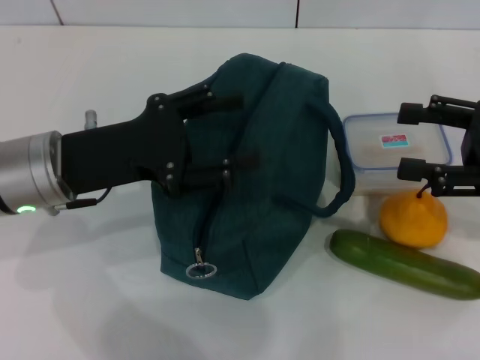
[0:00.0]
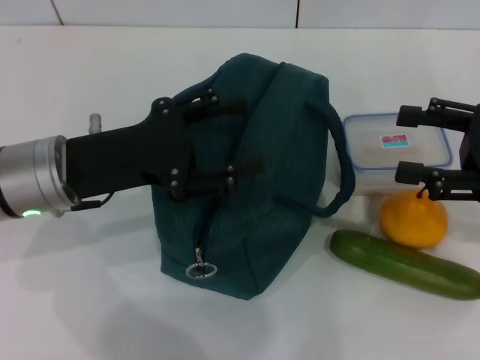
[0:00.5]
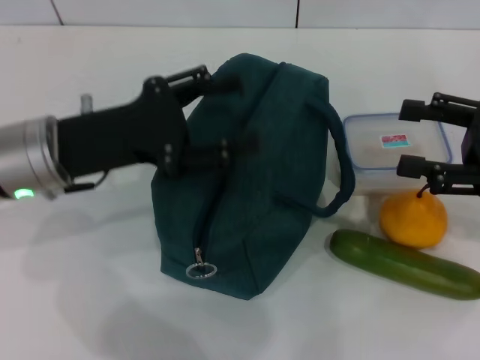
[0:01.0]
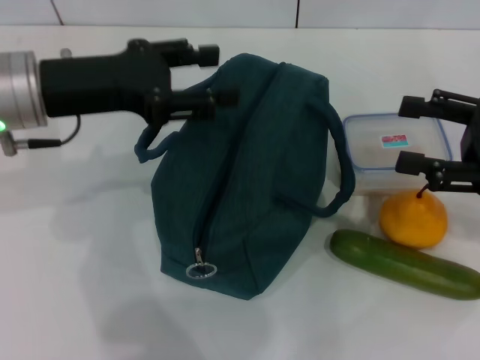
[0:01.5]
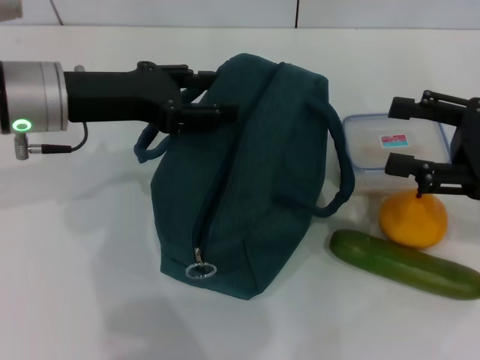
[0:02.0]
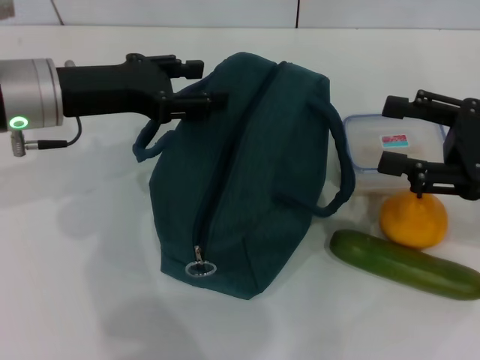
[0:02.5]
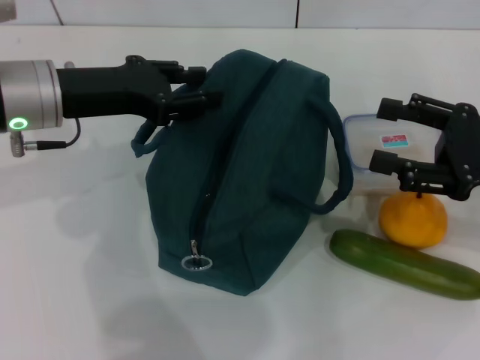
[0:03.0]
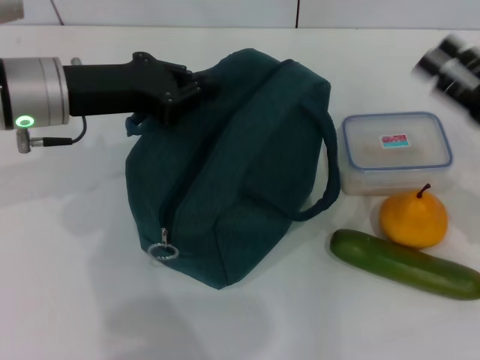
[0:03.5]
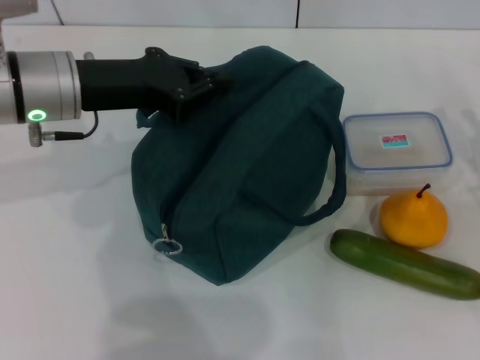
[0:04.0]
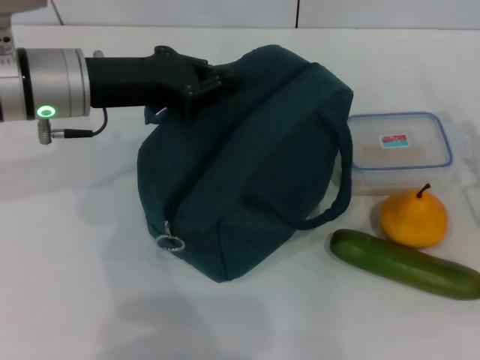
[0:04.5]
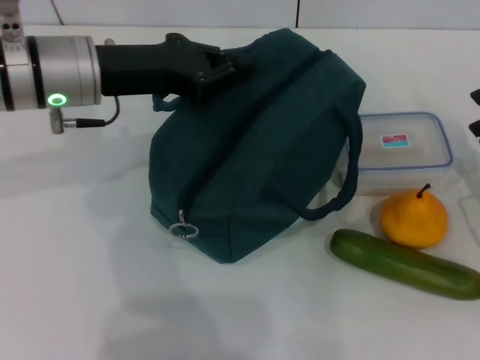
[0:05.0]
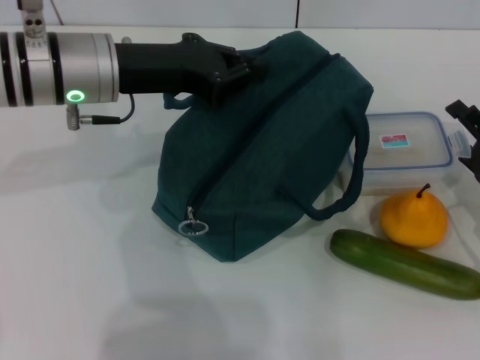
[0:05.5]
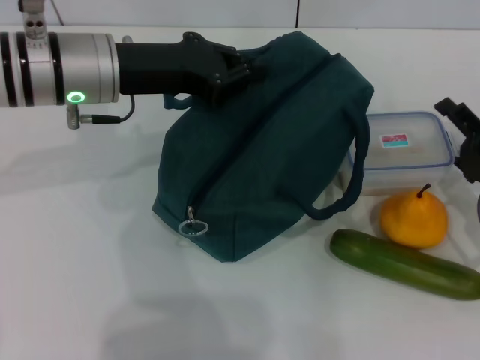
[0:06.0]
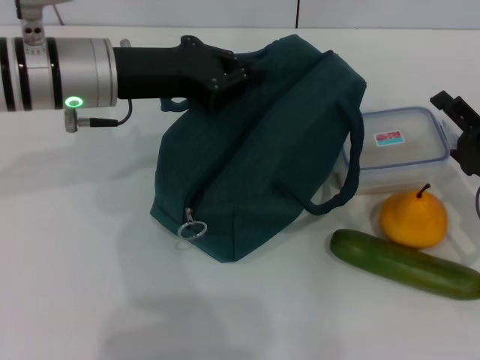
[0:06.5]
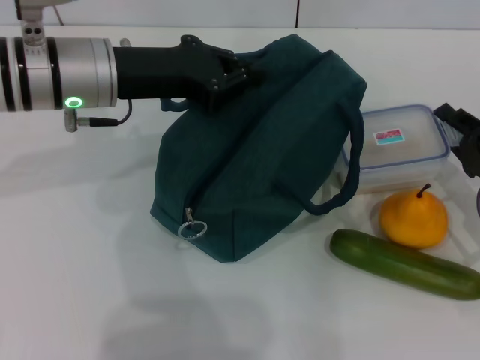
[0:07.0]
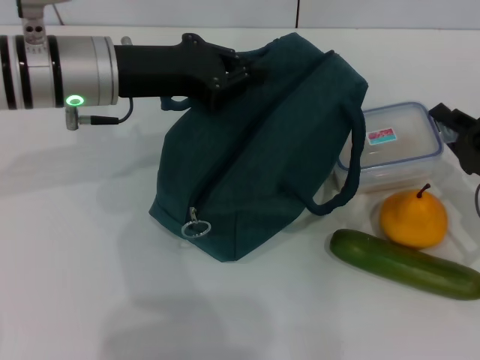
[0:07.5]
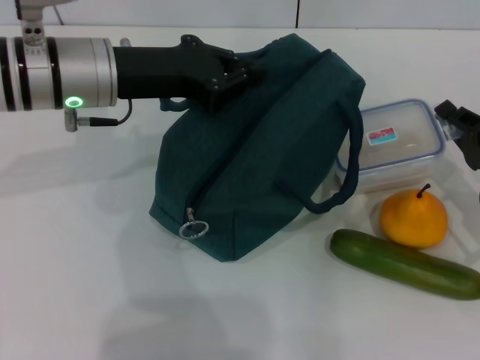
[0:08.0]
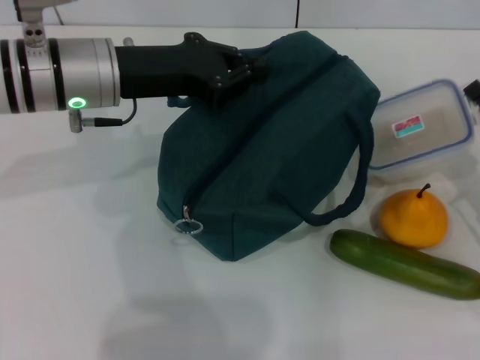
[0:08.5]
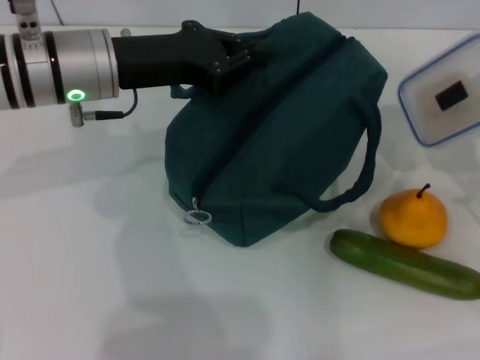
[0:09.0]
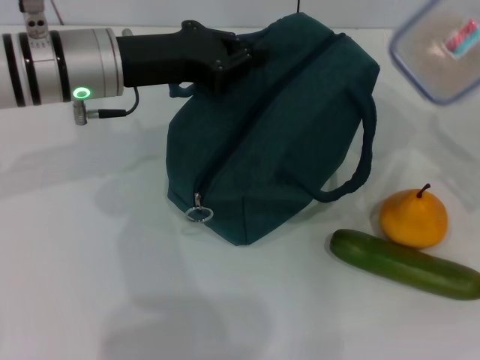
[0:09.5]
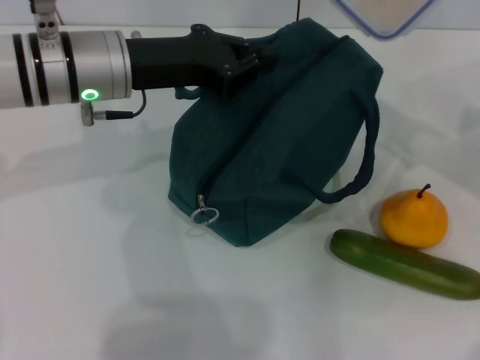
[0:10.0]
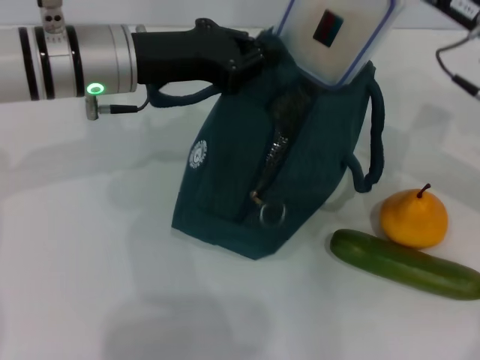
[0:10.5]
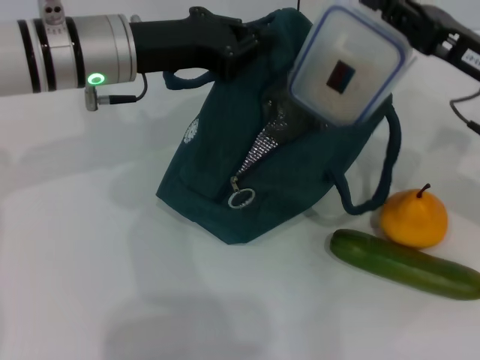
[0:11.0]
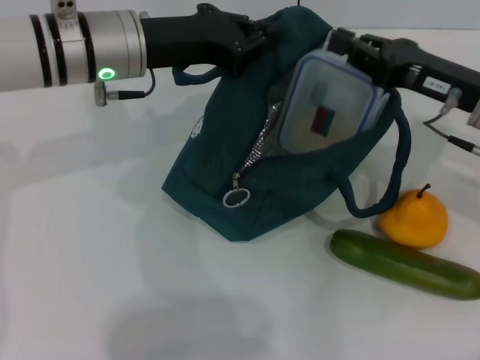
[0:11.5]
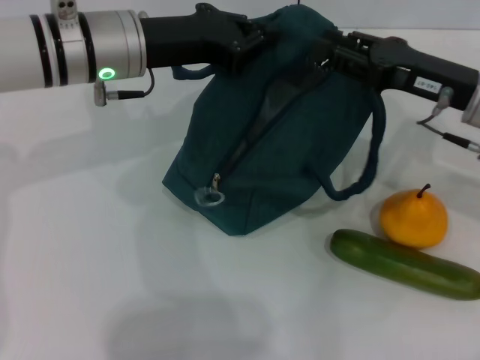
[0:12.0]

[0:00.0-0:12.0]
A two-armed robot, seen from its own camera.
Step, 0.0 to 3.5 s: Hold the lunch bag with your left hand.
Step, 4.0 to 8.0 s: Pick up the lunch box with your right hand.
0.0 to 2.0 s: The left gripper goes roughly 5 cm forward.
2.0 to 4.0 s: The left gripper closes. The right gripper shifts roughly 10 cm downward.
6.0 to 8.0 s: The right gripper closes its fingers.
8.0 to 10.0 s: The right gripper goes some 20 cm upward and forward.
10.0 to 12.0 s: The right gripper moves downward, about 5 cm.

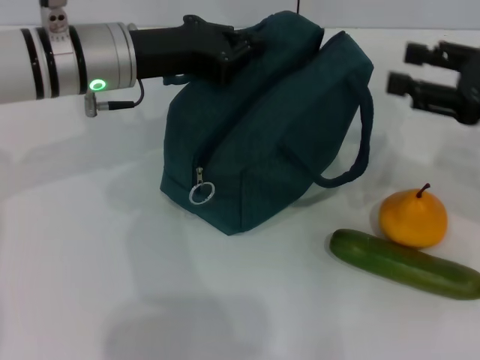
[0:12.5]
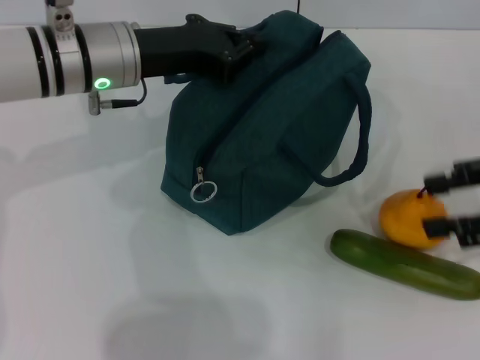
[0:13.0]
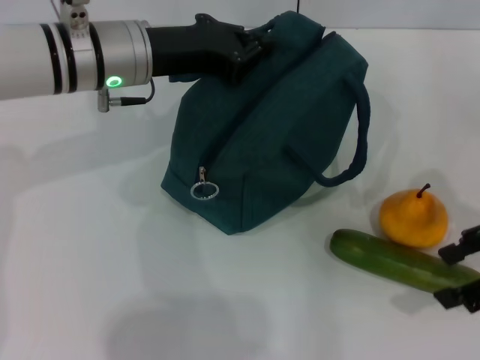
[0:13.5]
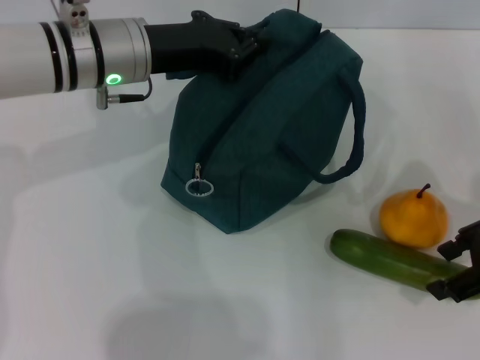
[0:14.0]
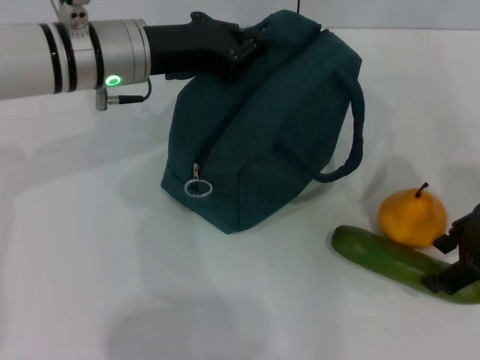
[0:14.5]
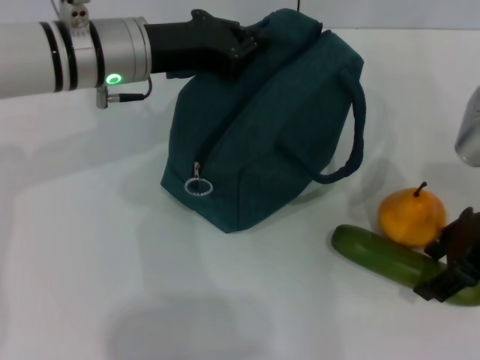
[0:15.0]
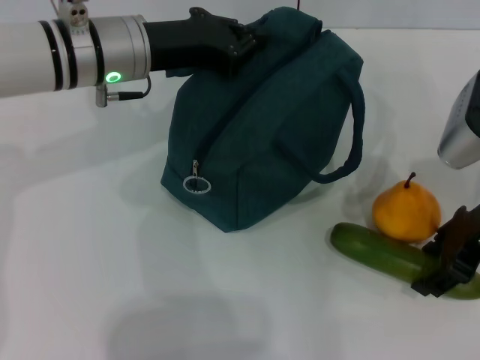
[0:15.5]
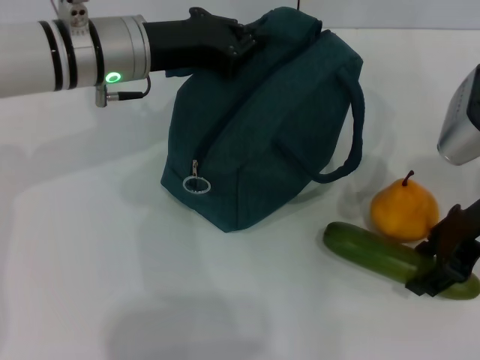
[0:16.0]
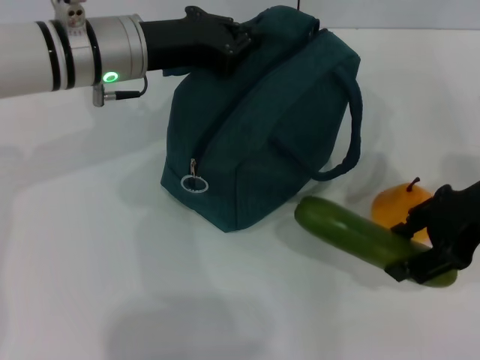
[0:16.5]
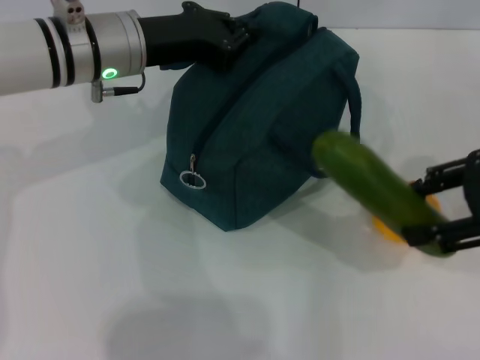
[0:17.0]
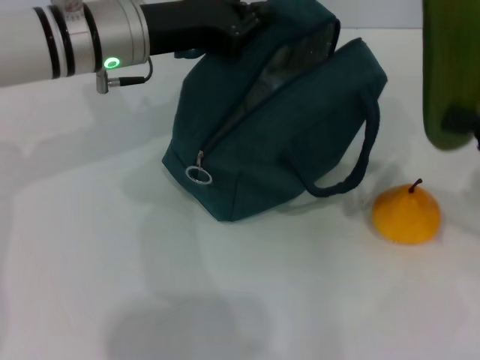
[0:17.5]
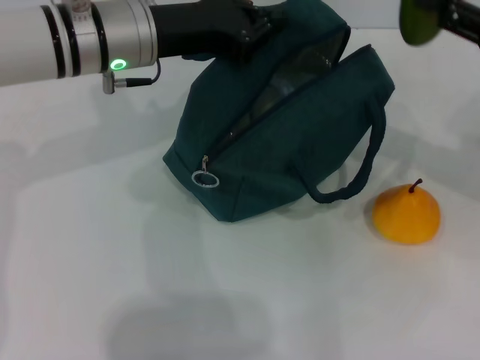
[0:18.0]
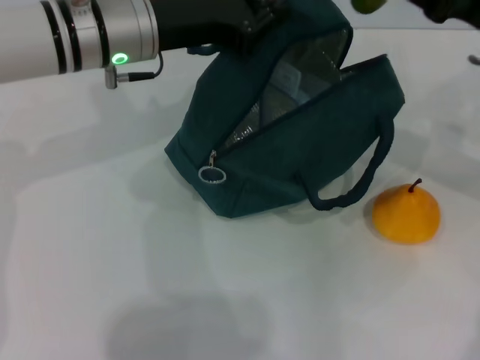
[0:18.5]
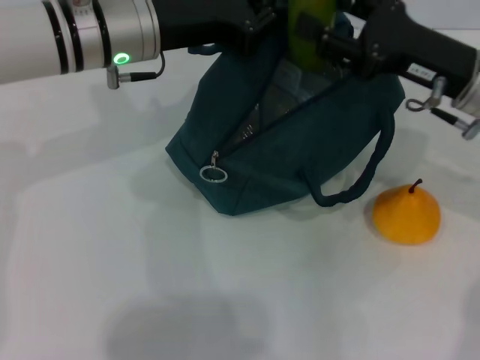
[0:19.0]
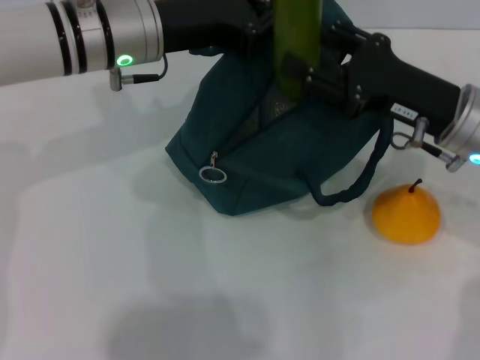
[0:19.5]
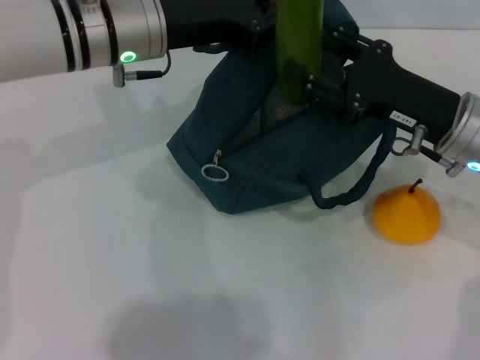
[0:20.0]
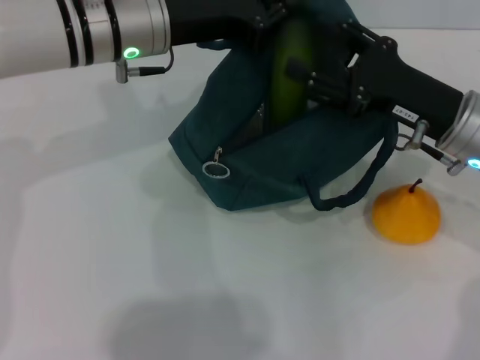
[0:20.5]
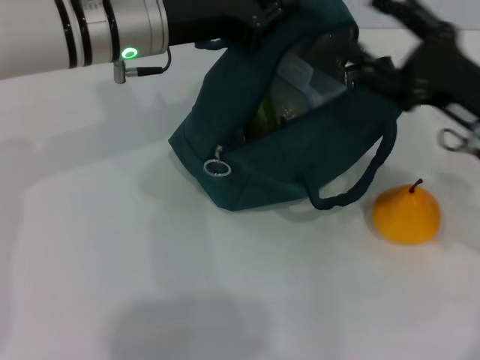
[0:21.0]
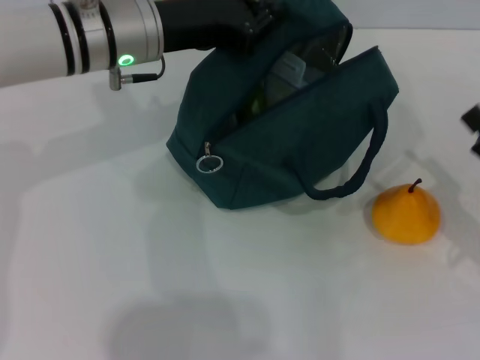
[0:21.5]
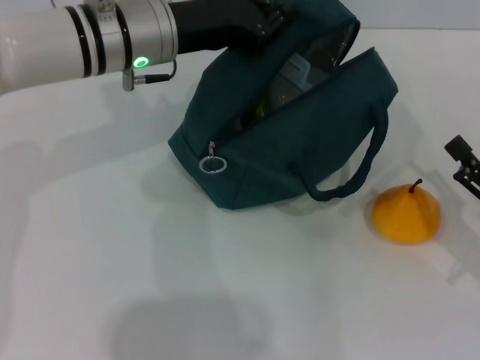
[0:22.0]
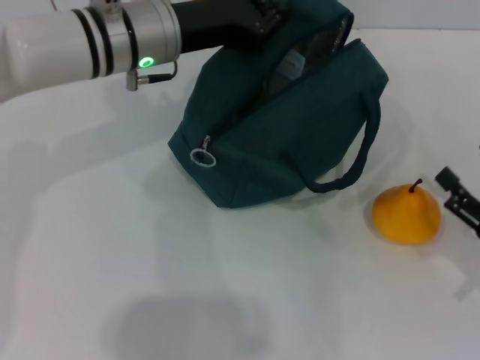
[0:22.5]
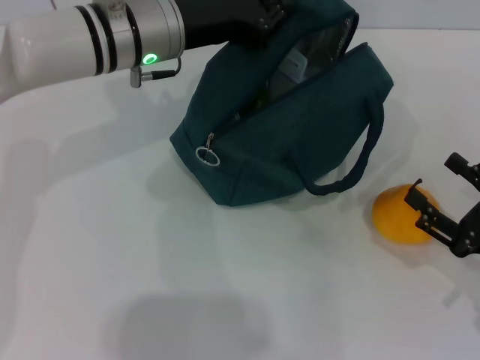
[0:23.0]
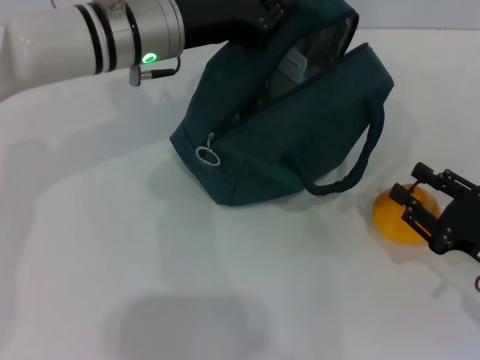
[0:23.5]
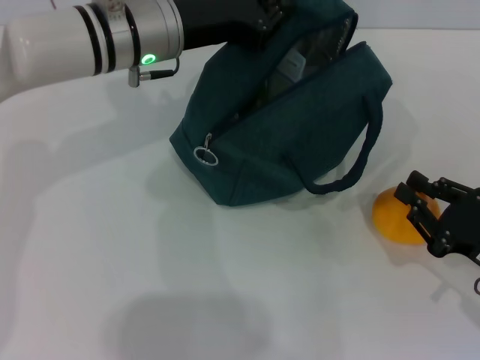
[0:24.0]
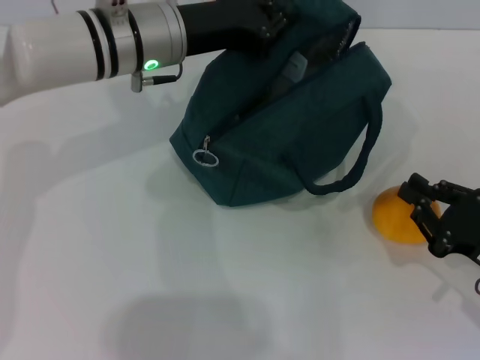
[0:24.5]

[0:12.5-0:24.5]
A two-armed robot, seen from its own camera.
Step, 12.5 to 15.5 s: Pick up the cucumber with your right hand.
Step, 16.0 to 20.5 s: Put the cucumber into the lunch bag with your right hand.
14.5 to 16.5 s: There are only small adjustments of the grippers.
16.5 to 18.5 s: The right gripper travels forward by about 5 cm, and travels to the right and back again, about 10 cm each way.
18.5 to 20.5 s: The right gripper goes about 10 cm downward and to the left.
20.5 to 22.5 s: The right gripper travels backward, to the right and downward by roughly 20 cm.
22.5 to 24.5 s: The right gripper closes its fingers.

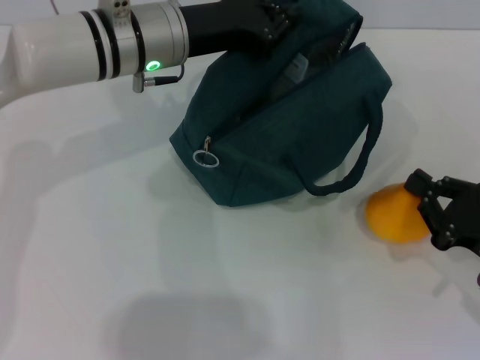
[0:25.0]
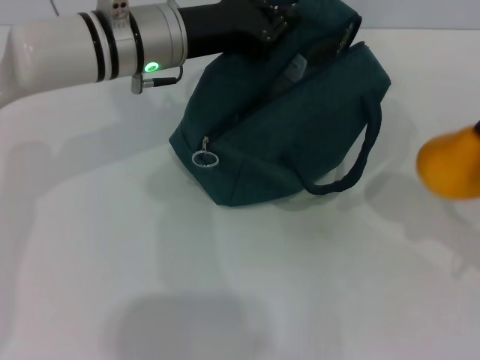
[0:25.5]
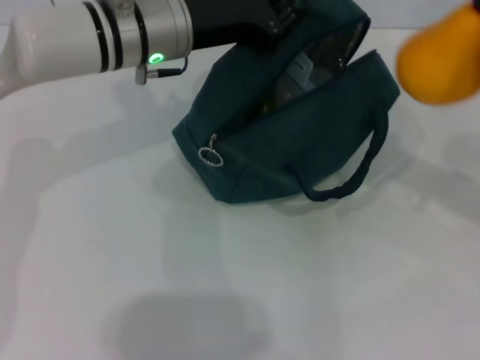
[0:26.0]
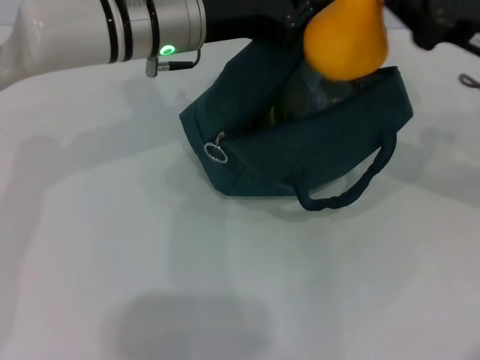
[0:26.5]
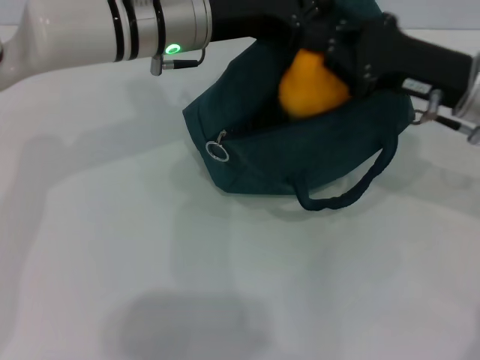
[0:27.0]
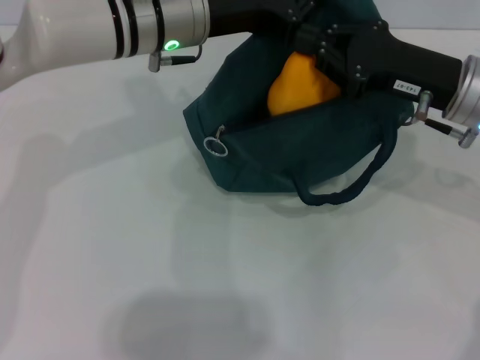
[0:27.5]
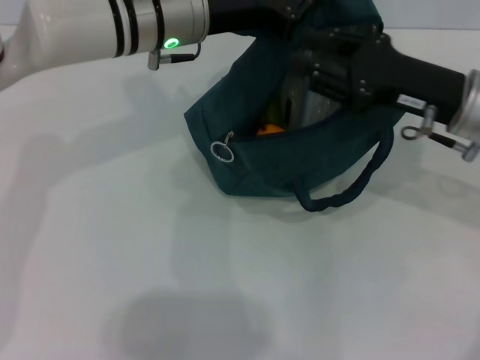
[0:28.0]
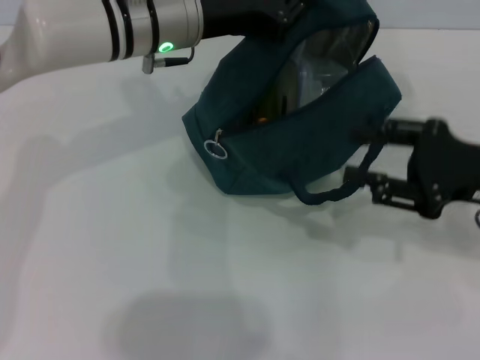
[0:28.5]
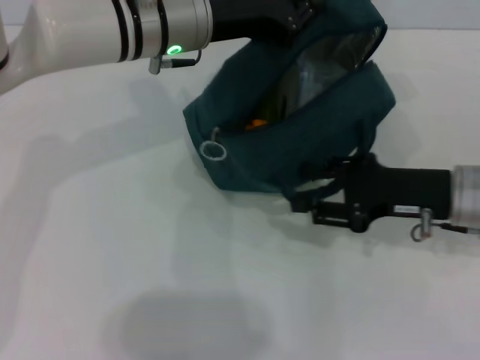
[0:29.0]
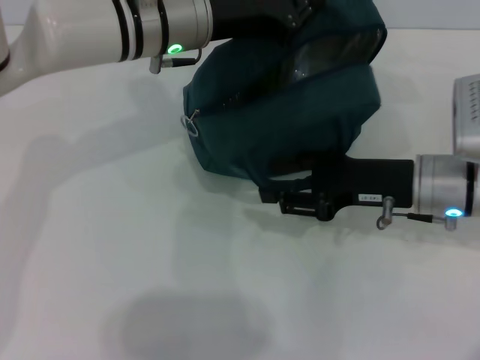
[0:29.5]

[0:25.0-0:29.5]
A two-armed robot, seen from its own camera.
25.0 to 27.0 s: The right gripper travels forward, upward and to the left by roughly 20 cm.
27.0 to 29.5 s: The right gripper is displaced downward by approximately 5 cm, reaches some 5 cm to the right, then returns, and opens up.
